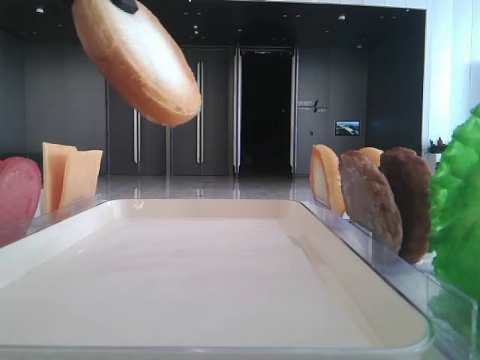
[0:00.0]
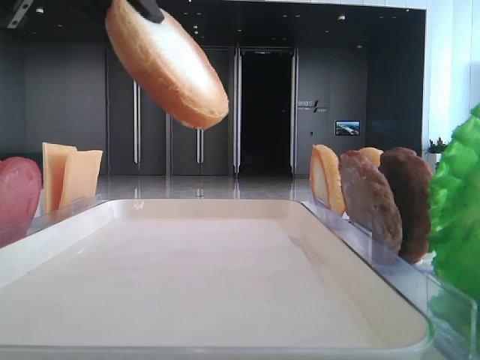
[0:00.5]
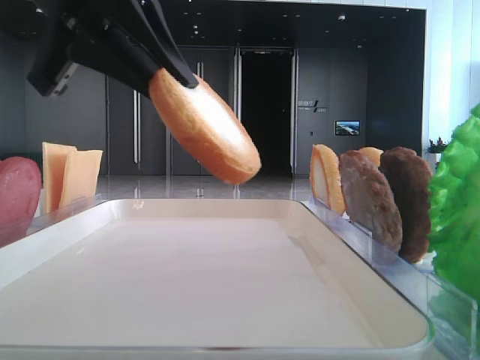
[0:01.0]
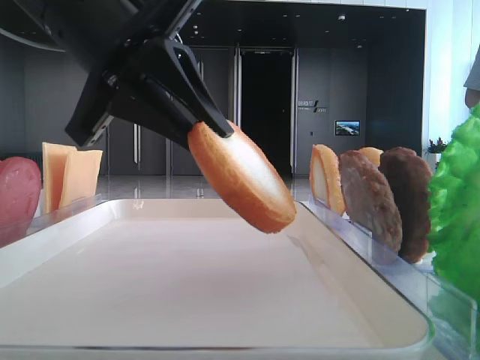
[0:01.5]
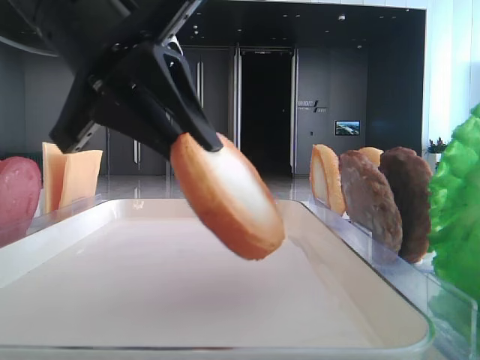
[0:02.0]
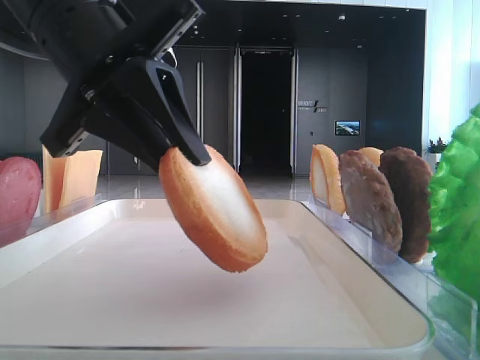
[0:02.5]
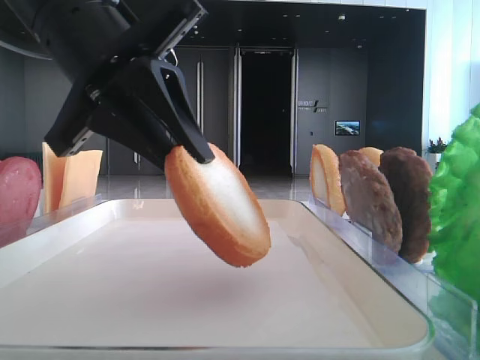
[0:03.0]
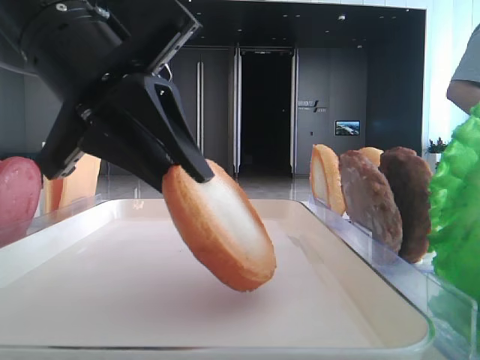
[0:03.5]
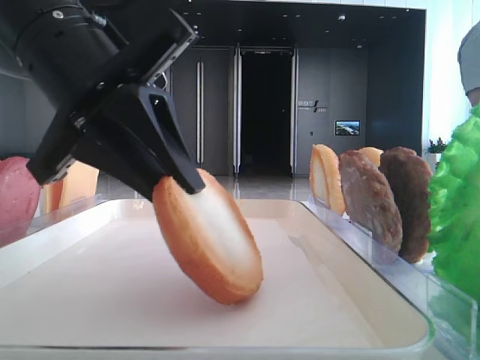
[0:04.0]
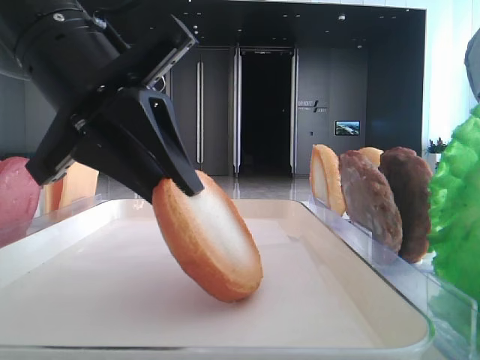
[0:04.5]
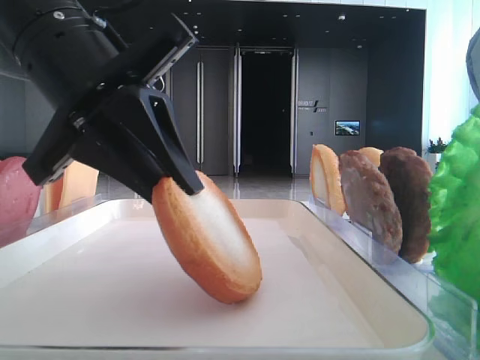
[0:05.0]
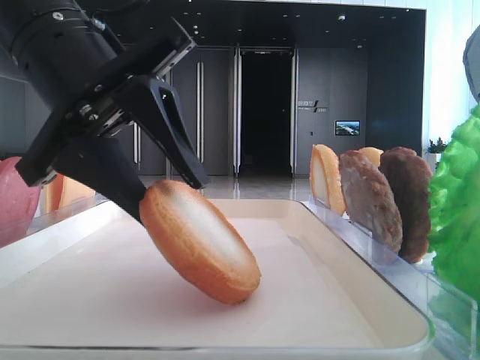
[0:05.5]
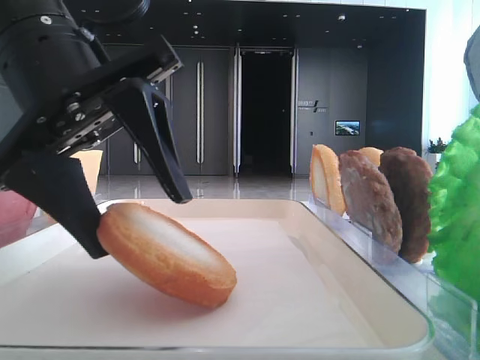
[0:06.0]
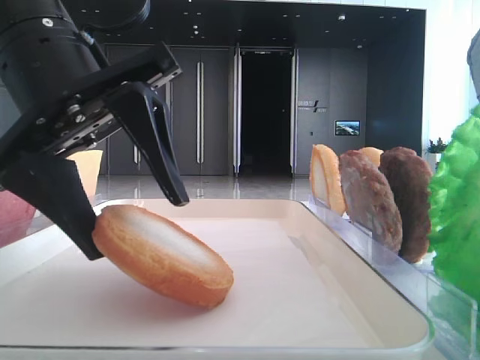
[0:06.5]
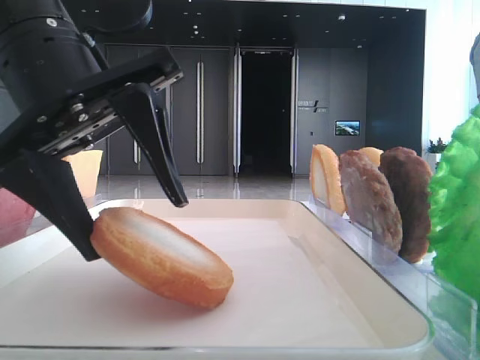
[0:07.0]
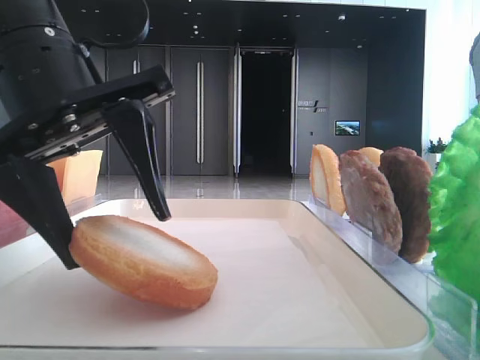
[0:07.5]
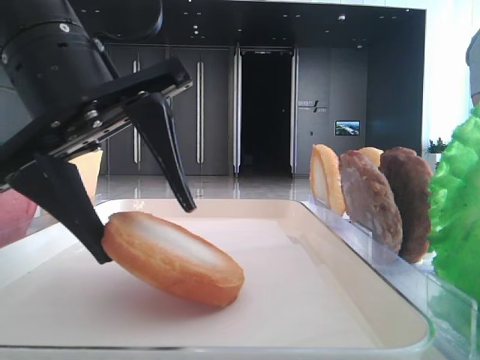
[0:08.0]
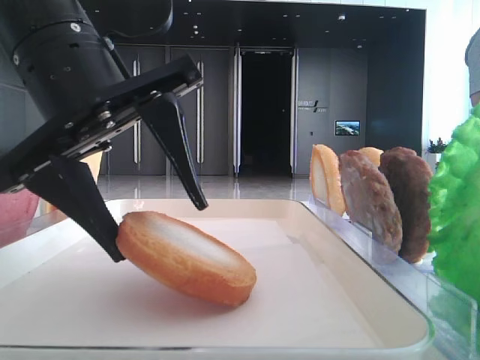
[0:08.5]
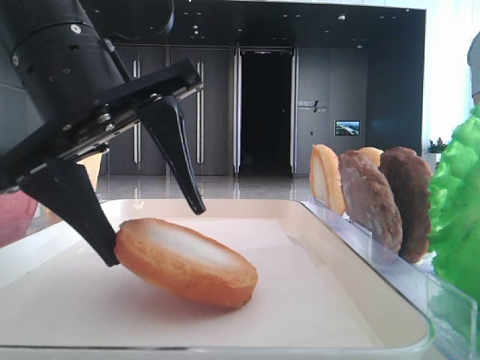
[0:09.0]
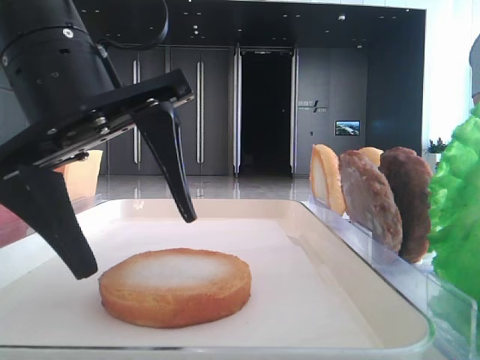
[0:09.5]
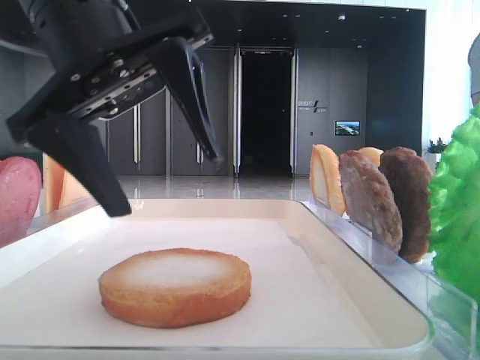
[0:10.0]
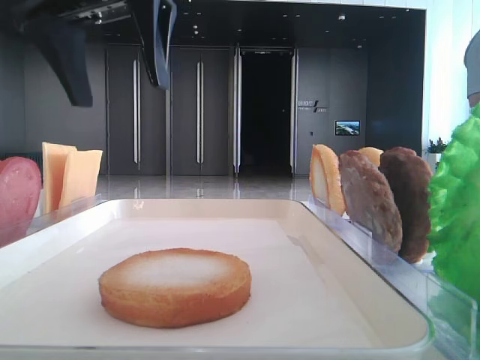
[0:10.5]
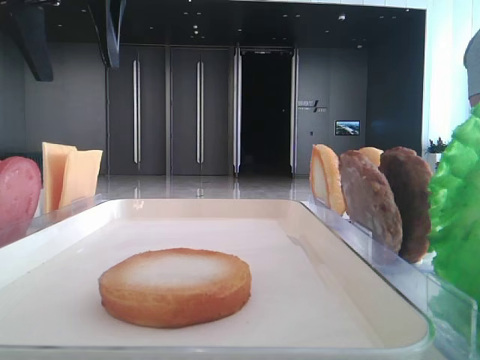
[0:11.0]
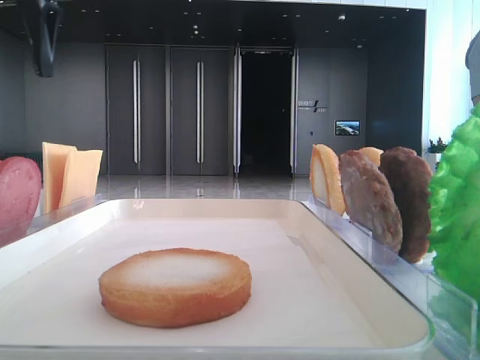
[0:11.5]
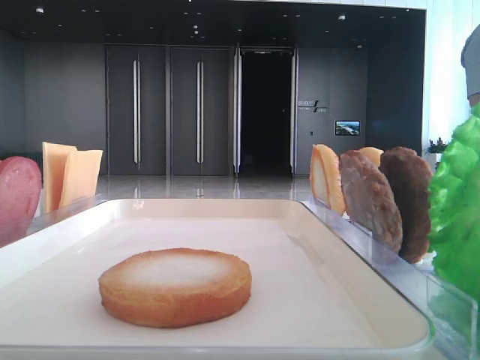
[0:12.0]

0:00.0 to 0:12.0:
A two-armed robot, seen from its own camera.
Step, 0:00.0 to 0:09.0: Place the bread on the tray with the left hand.
0:00.0 to 0:02.0: The left gripper goes roughly 10 cm downward.
0:02.0 to 0:04.0: The grippers move only a little.
0:04.0 to 0:06.0: The left gripper opens up.
0:06.0 to 0:08.0: The grippers move only a little.
0:10.0 to 0:12.0: The left gripper heads to the left, upward and forward, covering some 30 cm.

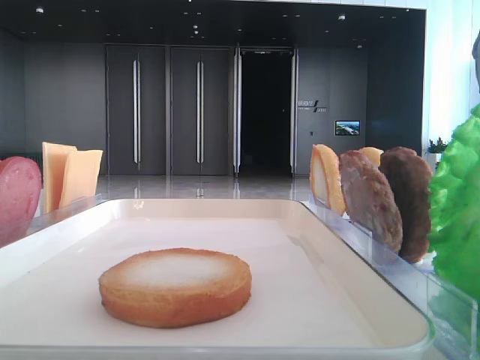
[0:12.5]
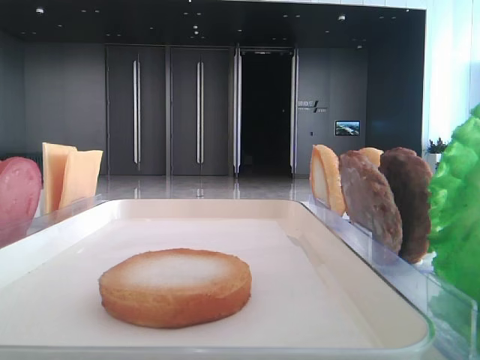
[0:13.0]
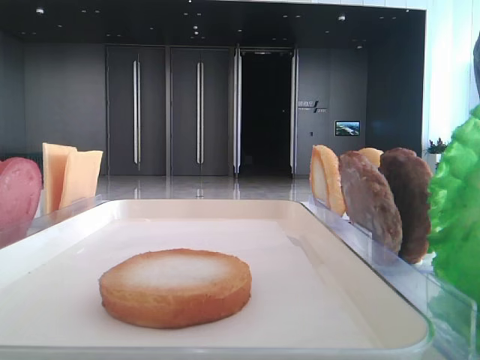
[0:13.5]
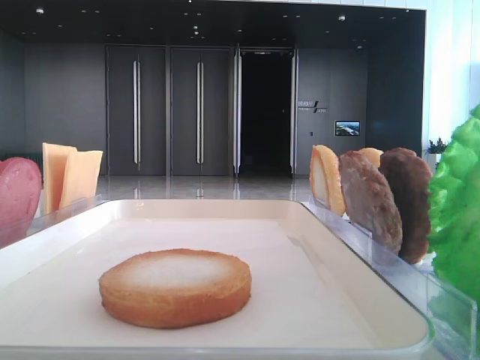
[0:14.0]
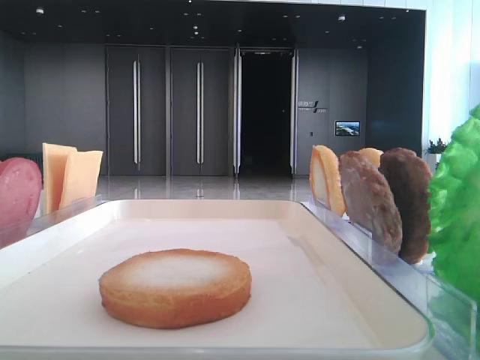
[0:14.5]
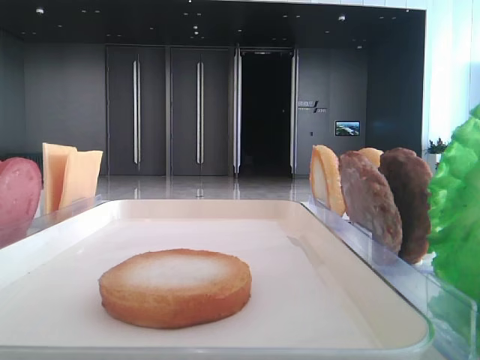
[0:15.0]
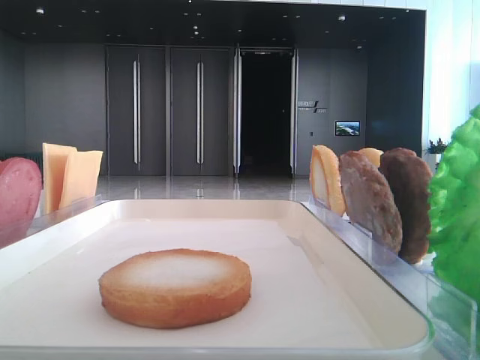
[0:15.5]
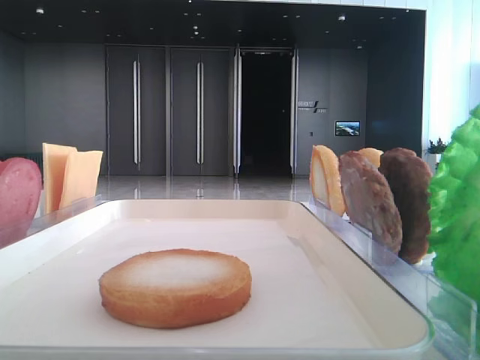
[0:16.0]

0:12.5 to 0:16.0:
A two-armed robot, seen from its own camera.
0:14.5 to 0:16.0: Neither gripper changes place.

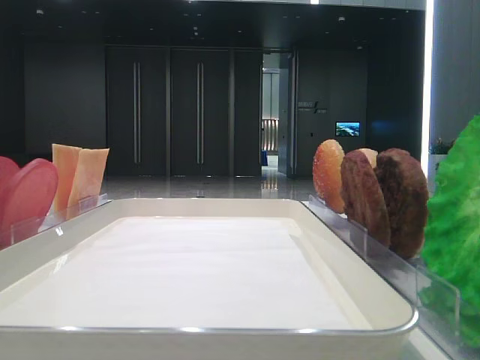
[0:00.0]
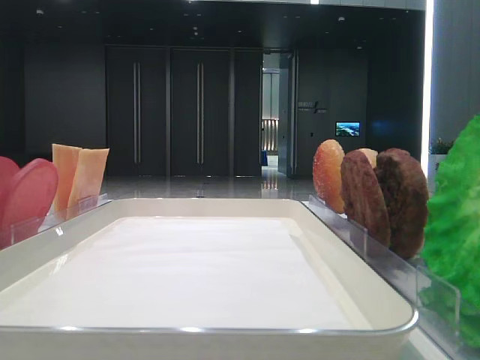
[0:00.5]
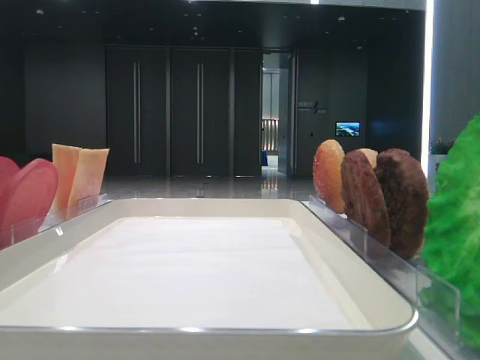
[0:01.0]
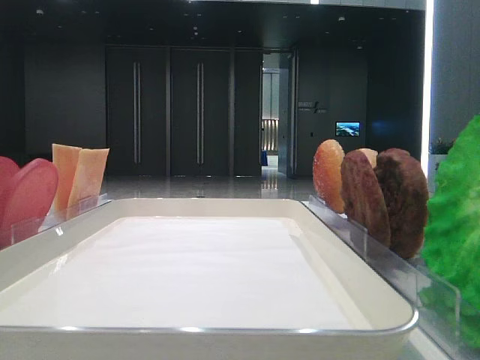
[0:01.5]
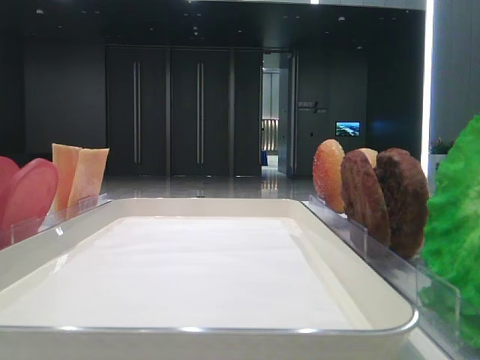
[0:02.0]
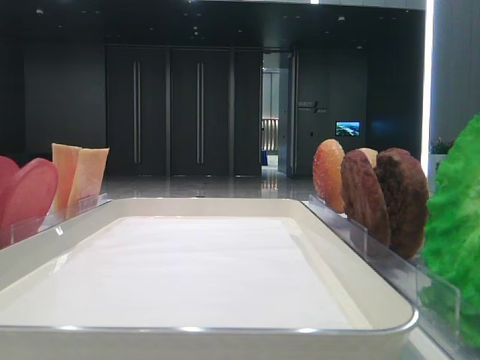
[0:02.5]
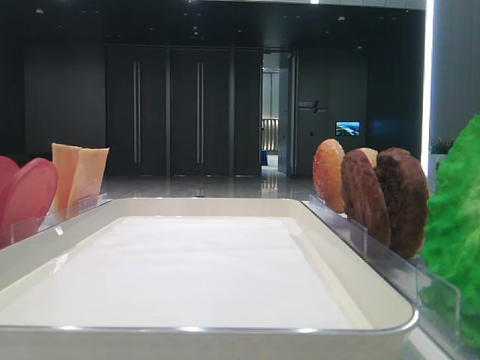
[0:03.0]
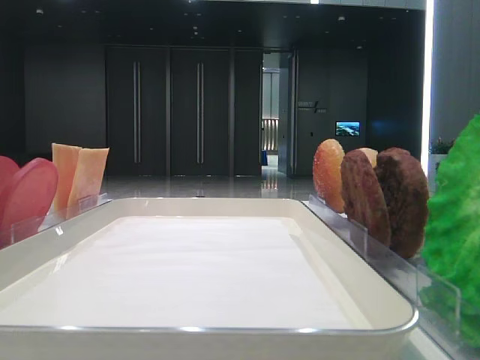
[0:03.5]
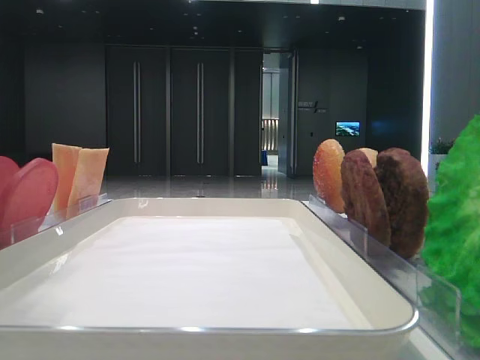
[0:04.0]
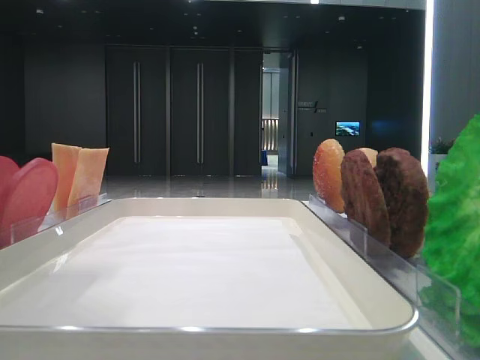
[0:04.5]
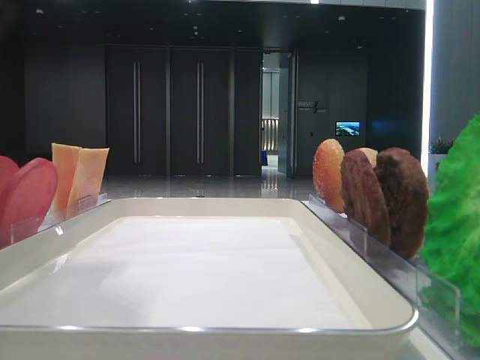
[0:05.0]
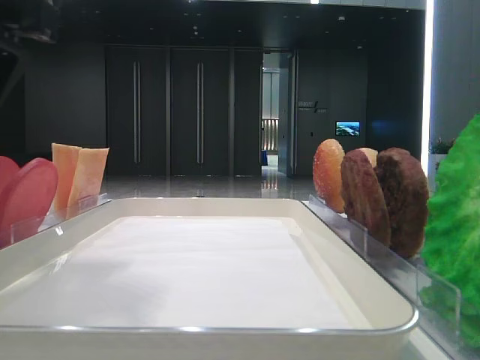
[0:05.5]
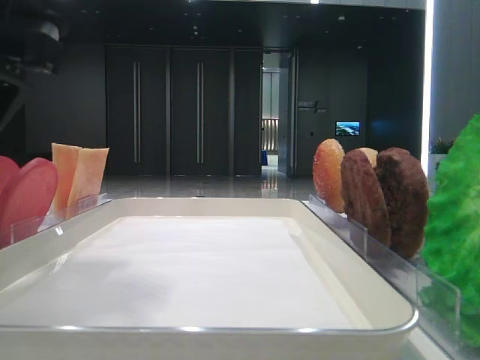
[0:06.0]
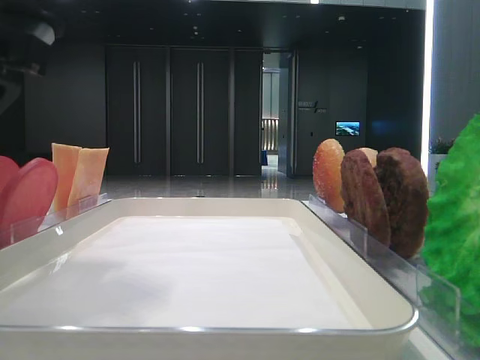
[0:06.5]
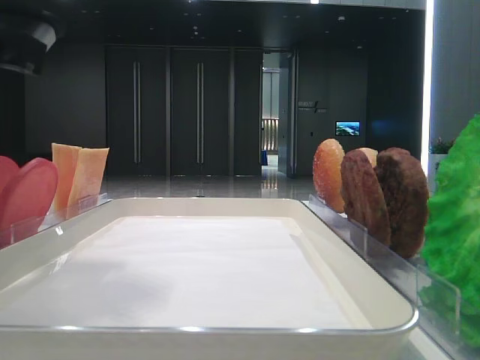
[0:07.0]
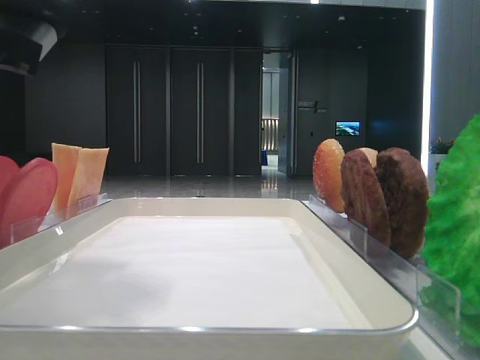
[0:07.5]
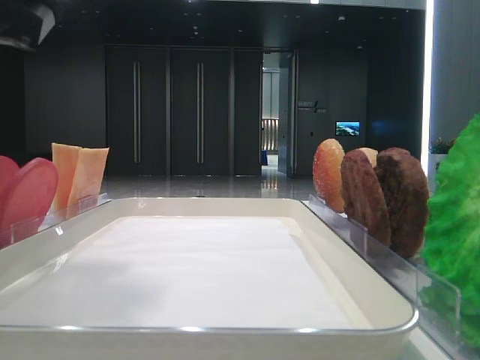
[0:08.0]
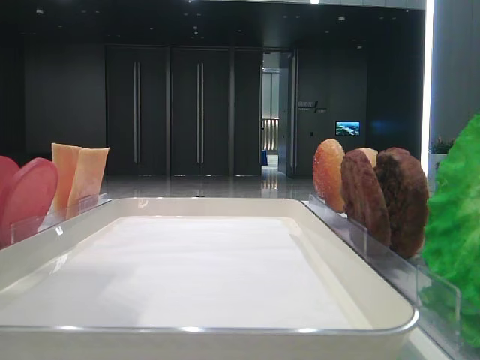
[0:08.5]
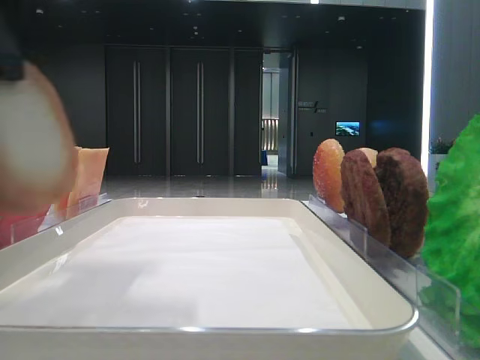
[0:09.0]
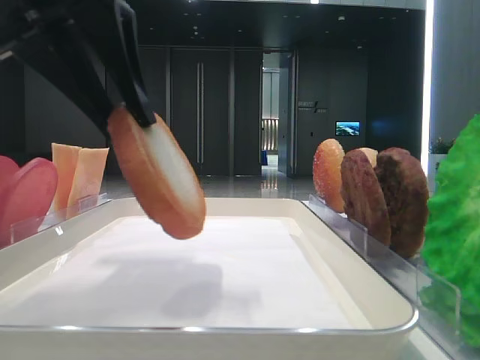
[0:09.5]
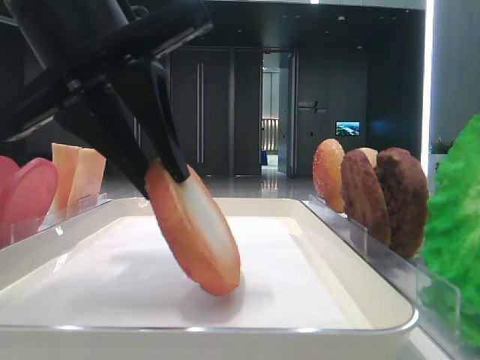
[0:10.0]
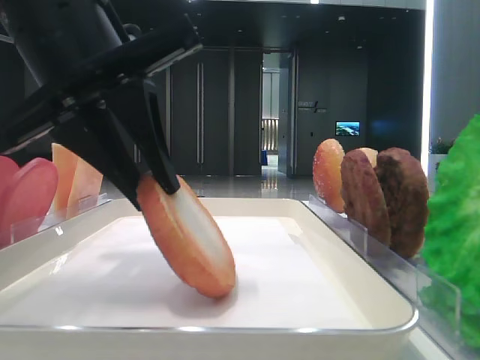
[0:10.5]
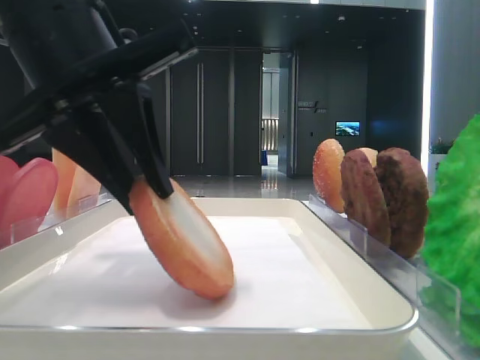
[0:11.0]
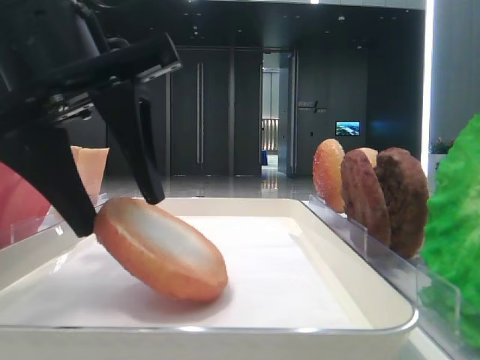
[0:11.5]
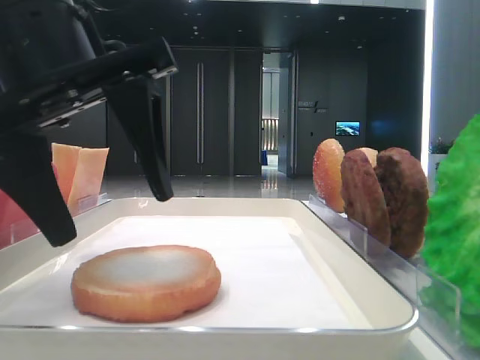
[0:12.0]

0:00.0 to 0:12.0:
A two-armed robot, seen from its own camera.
Step, 0:00.0 to 0:07.0: Pick up the bottom bread with the left hand.
0:02.0 to 0:04.0: The left gripper travels forward and to the right by roughly 15 cm.
0:04.0 to 0:06.0: The left gripper goes some 10 cm downward and to the right.
0:08.0 to 0:10.0: The left gripper moves to the right, approximately 5 cm.
0:10.0 to 0:12.0: The left gripper opens.
